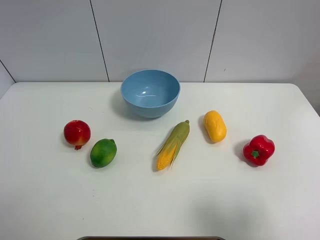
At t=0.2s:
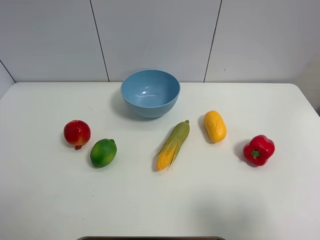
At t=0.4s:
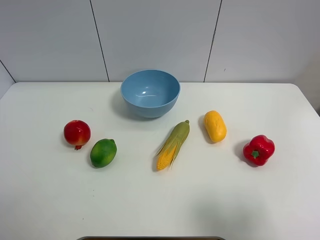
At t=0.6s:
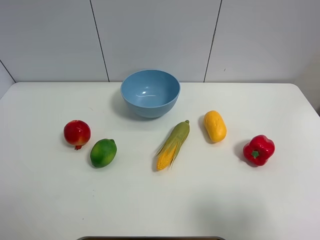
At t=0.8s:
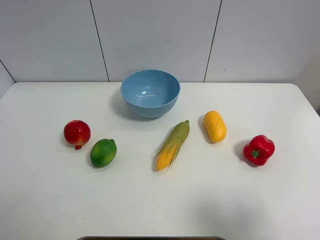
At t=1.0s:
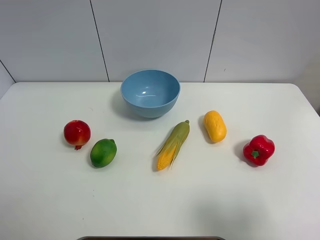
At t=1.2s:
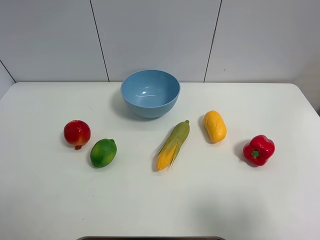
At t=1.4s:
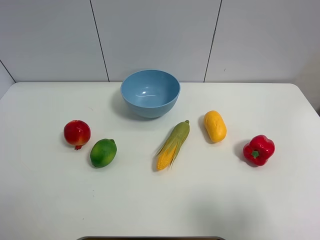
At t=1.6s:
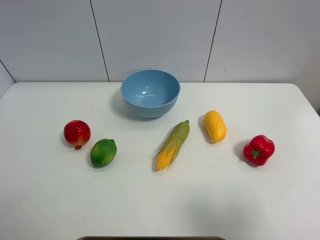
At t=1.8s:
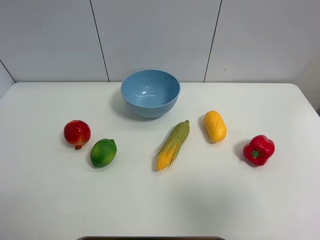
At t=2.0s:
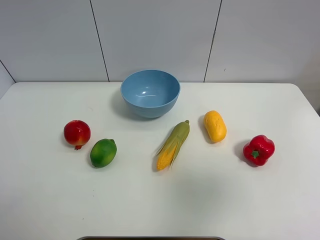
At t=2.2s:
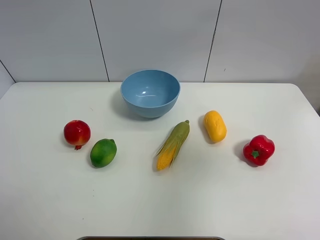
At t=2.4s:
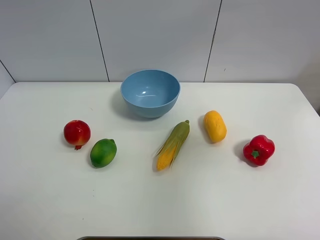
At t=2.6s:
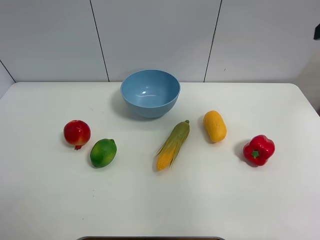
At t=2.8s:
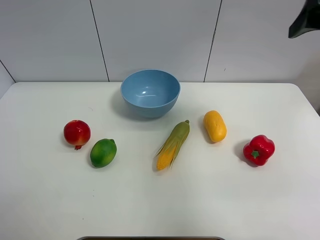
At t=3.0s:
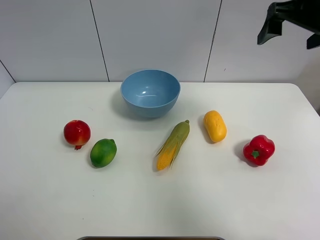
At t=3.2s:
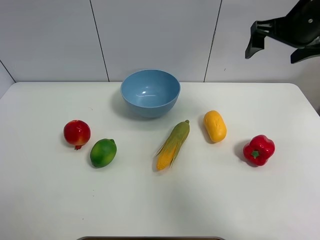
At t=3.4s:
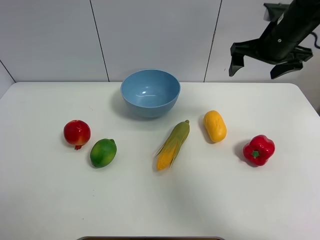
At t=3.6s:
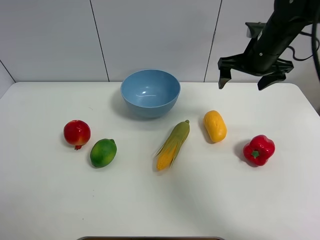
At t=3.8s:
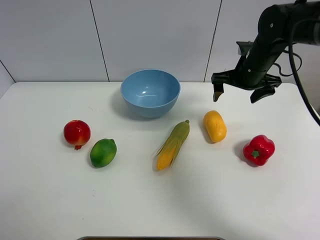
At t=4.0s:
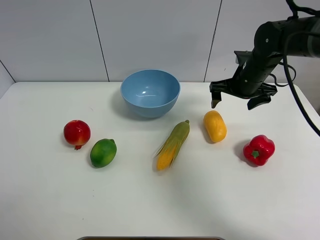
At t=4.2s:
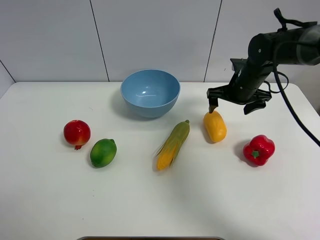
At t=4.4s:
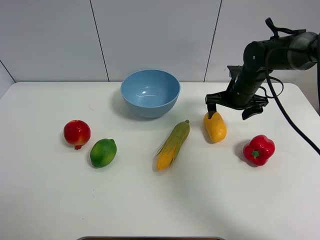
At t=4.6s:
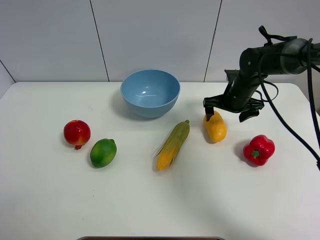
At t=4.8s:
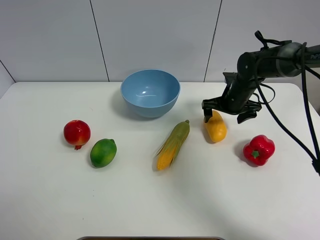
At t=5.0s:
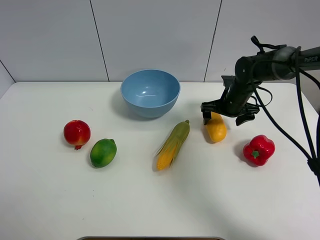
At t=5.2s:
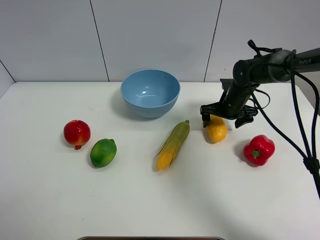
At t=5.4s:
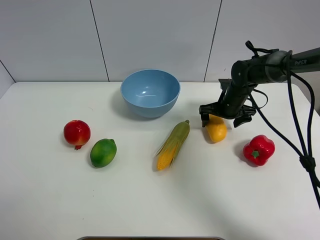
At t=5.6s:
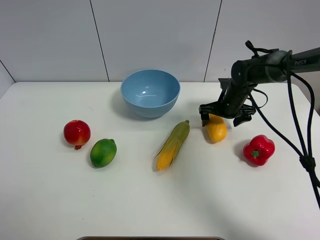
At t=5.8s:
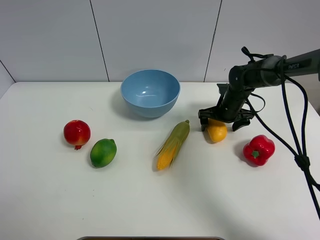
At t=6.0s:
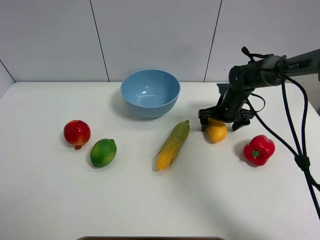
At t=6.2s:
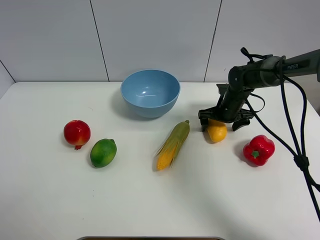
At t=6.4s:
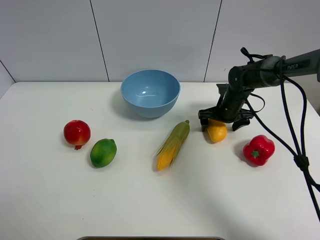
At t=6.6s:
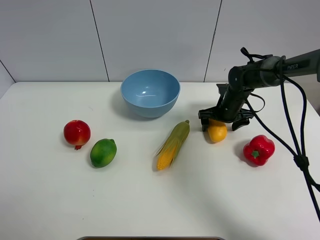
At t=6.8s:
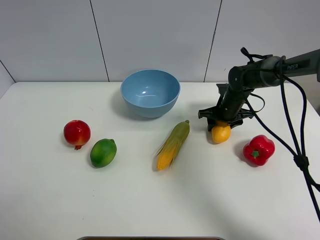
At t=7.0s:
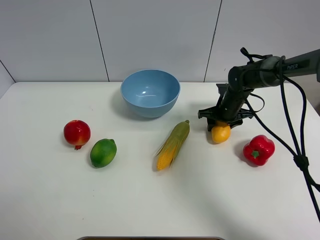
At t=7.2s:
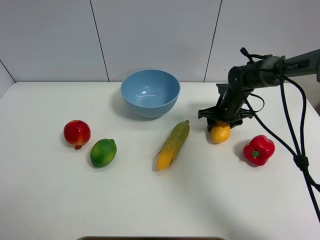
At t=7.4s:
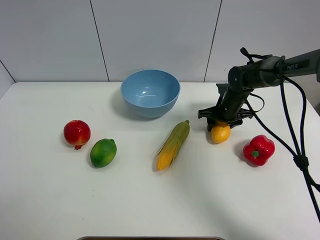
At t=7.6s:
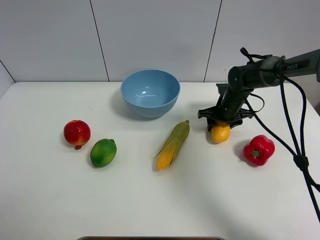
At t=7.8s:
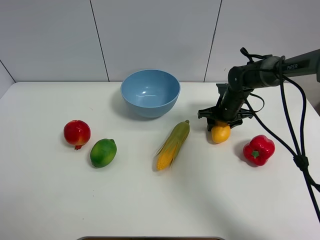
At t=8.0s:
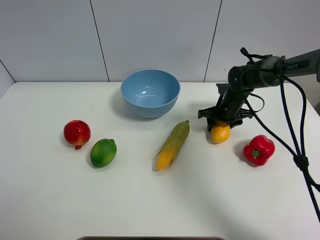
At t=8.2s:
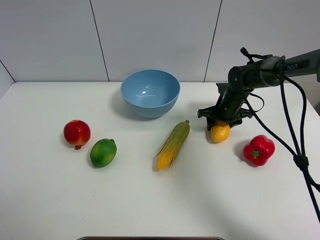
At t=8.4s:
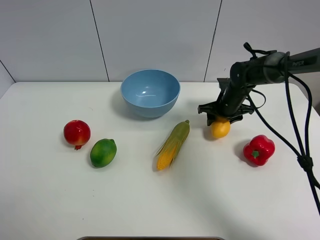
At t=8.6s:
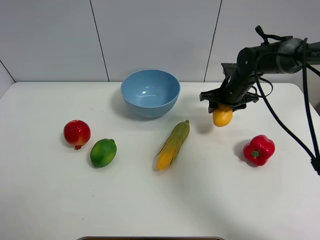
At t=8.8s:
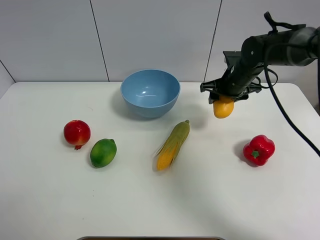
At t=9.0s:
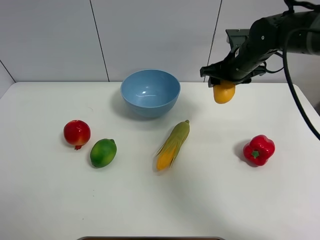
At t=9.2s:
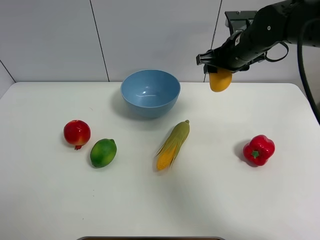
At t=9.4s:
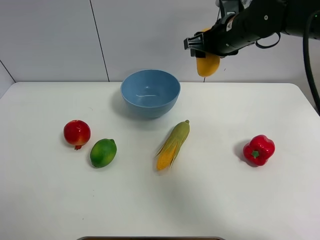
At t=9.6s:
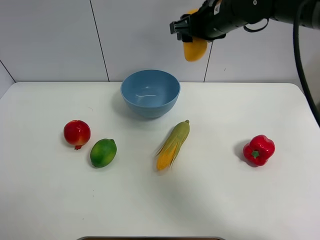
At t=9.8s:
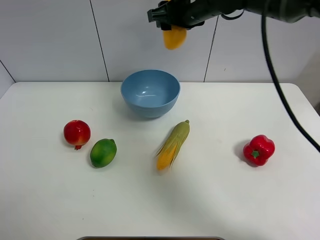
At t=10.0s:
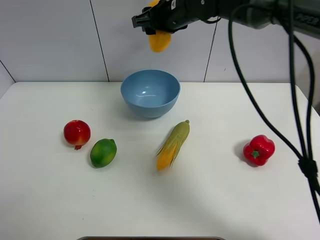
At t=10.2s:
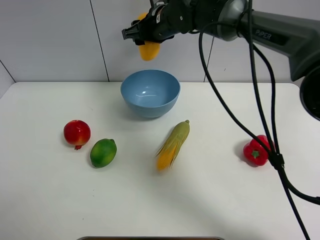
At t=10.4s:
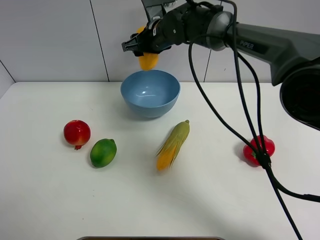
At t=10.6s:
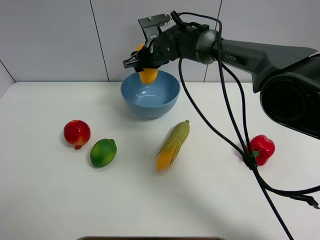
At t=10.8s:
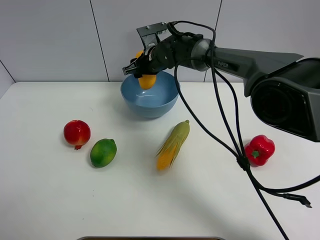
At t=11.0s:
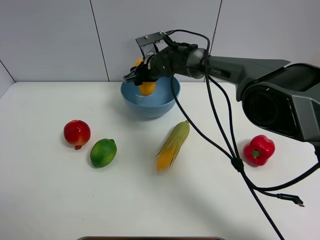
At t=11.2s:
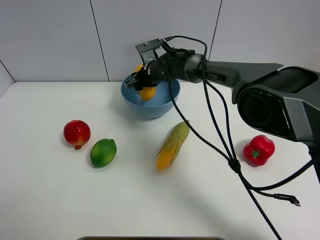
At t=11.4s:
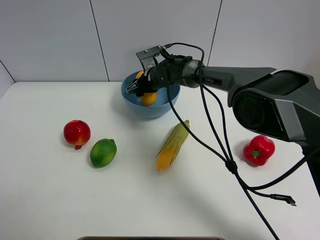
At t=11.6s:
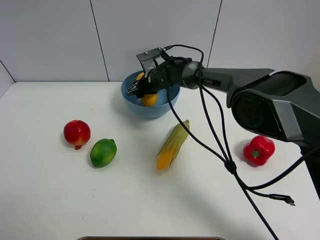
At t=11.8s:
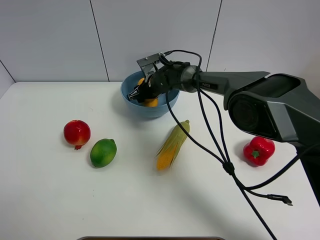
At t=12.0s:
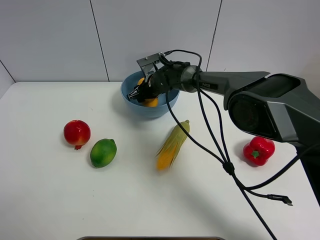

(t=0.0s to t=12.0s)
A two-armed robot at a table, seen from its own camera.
Task of the whole recording: Put the three fruits on the table into a bowl.
Step, t=0.0s - t=6.8s: Grasp the mango with right gripper.
t=1.6s - t=3.0s: The right gripper travels forward by roughly 35 cm.
t=3.0s - t=4.4s: The right gripper is displaced downward by some 20 cm.
t=4.4s - t=6.0s: The right gripper heads downward, covering about 5 cm.
t=6.0s - t=7.6s: The right gripper closes up.
t=7.6s - t=9.0s: The right gripper moves upward, roughly 15 cm.
t=9.0s - t=10.4s: The right gripper heads to the left, covering roughly 20 cm.
t=10.4s - t=12.0s: The right gripper goes approximately 15 cm downward.

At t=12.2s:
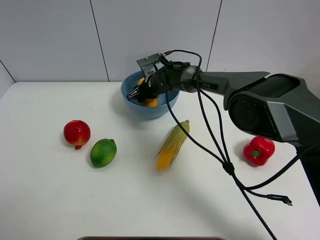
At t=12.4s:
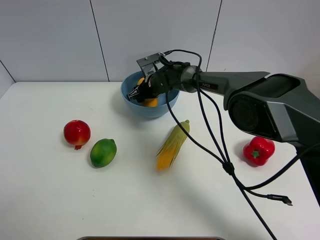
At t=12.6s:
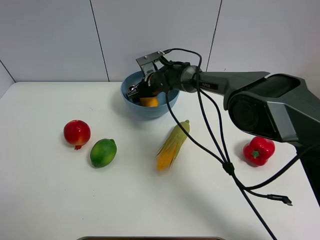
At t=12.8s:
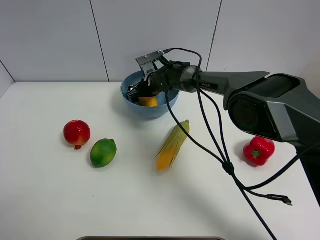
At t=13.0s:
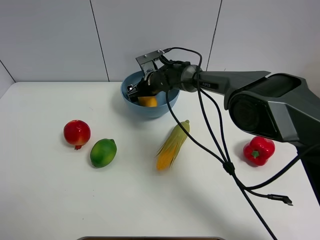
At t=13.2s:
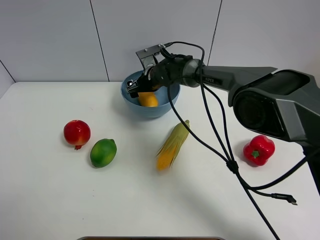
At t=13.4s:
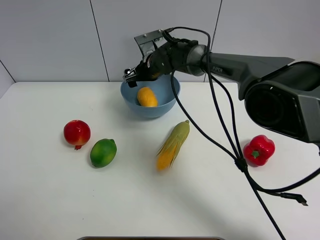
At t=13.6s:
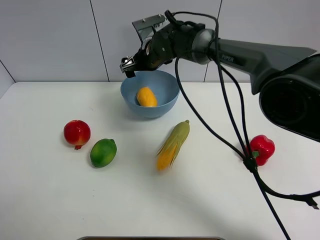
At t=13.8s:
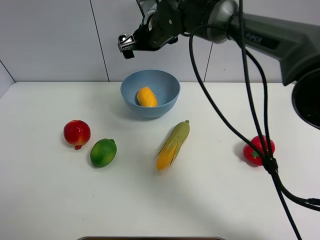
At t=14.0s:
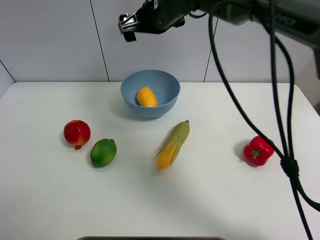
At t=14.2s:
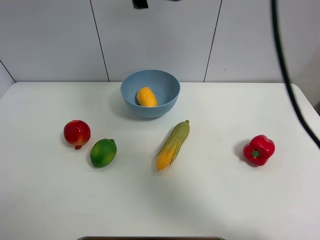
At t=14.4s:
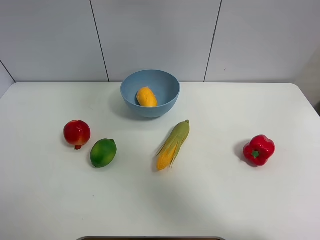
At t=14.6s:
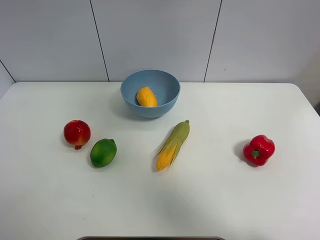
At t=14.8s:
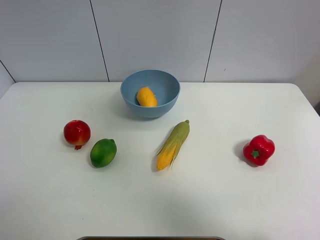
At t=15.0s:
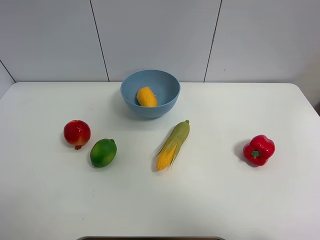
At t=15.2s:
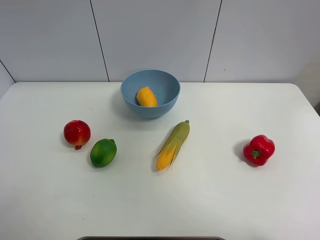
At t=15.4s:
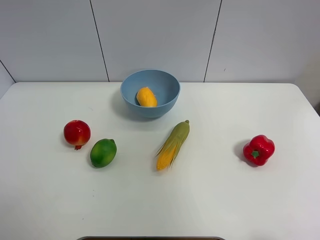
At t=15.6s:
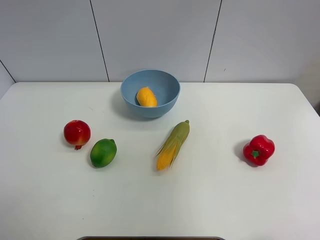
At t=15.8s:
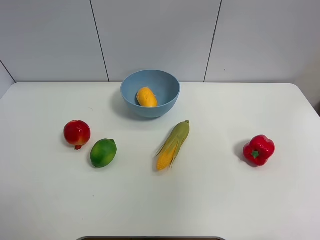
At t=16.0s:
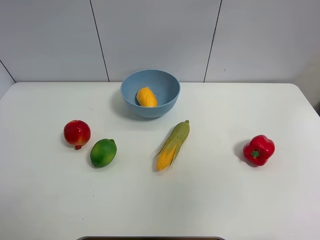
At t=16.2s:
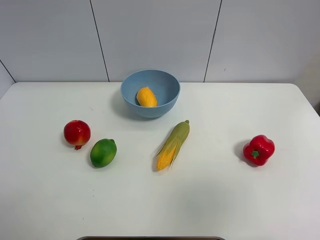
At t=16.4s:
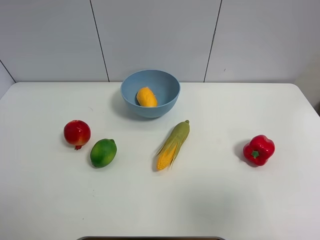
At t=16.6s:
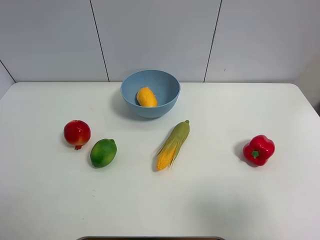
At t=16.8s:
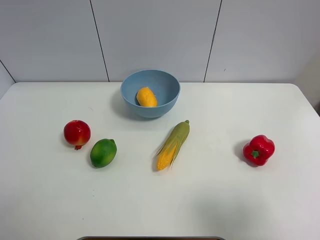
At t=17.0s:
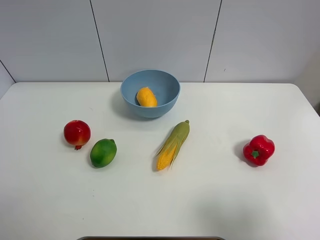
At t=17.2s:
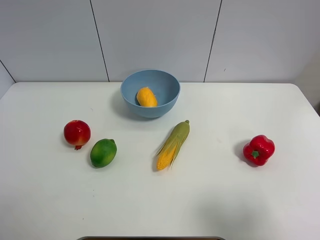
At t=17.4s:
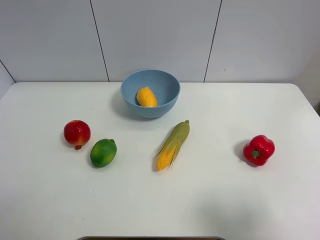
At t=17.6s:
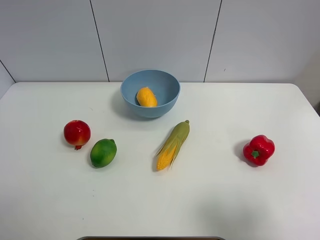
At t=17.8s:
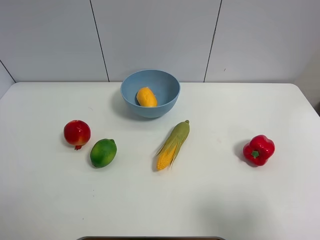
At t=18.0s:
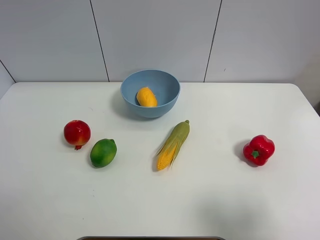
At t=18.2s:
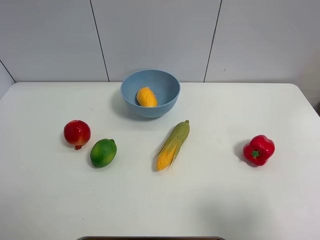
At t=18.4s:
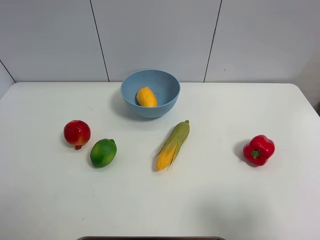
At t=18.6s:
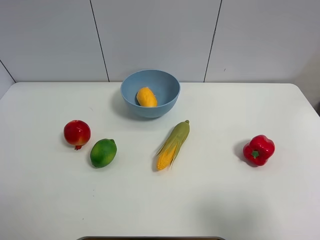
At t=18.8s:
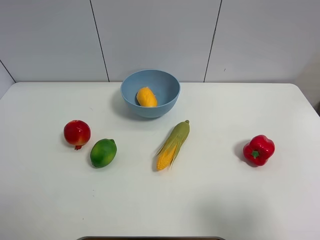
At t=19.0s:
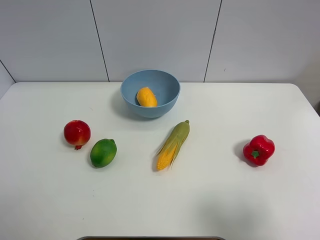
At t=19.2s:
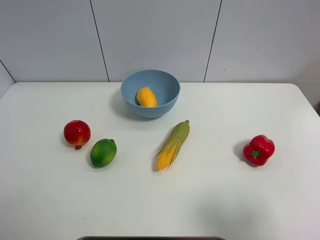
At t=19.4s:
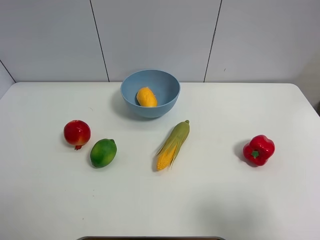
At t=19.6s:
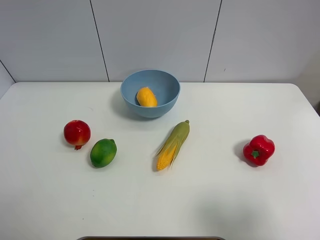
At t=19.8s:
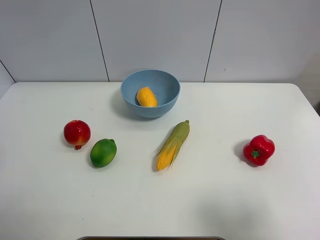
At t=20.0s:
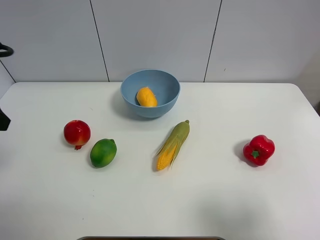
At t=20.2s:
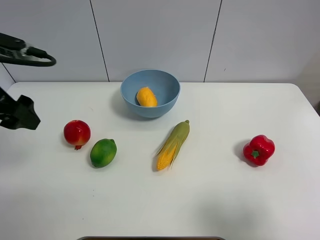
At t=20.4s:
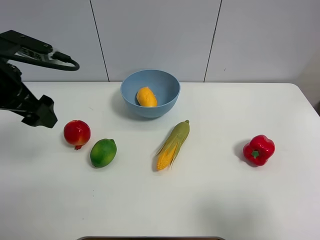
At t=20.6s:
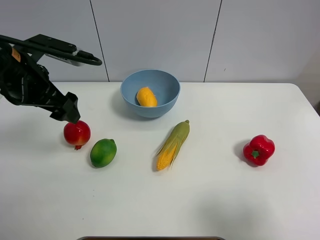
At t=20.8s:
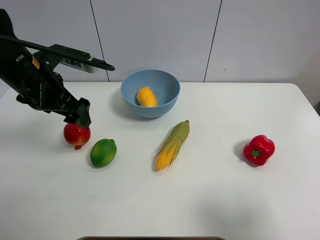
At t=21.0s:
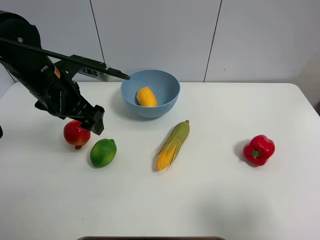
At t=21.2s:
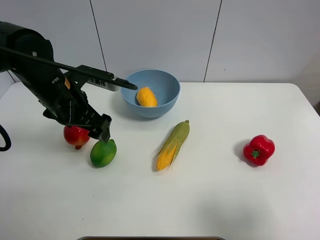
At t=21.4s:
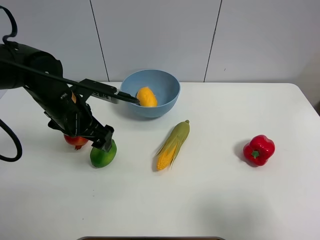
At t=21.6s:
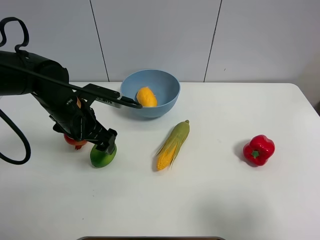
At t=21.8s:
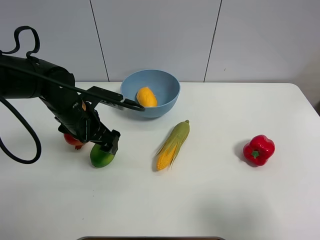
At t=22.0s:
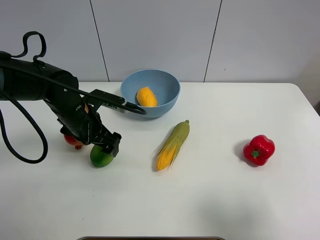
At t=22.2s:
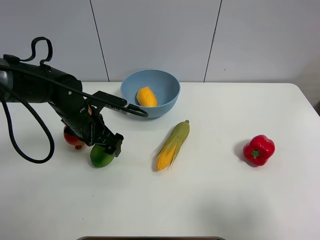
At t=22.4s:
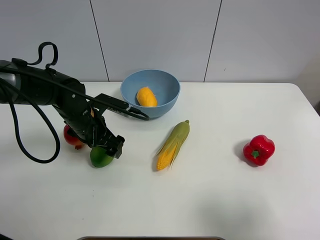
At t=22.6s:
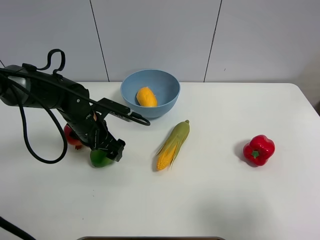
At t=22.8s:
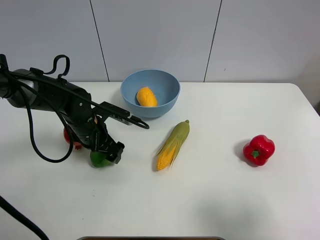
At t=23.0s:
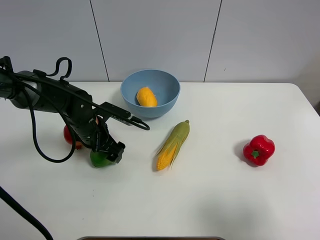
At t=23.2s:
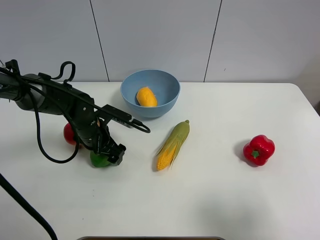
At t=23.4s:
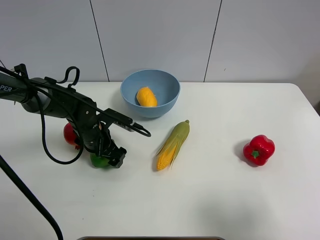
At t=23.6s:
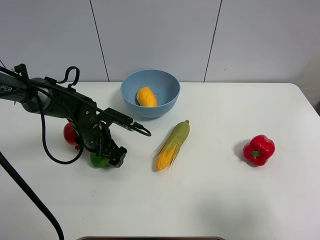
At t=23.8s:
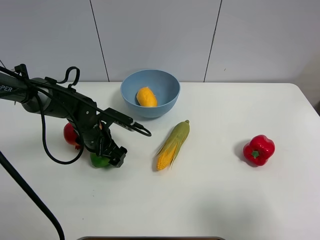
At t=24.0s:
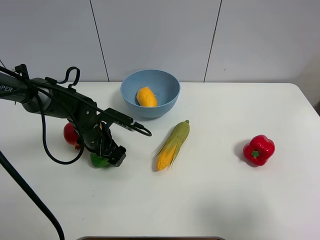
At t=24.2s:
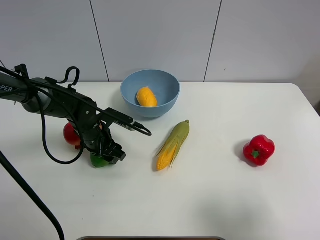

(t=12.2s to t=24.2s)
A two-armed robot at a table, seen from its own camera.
Task of the whole recording: Put the three fruits on the table into a bowl.
Step, t=13.4s - t=24.0s: Grasp the green lemon with left gripper.
t=12.2s - t=13.8s: The right gripper goes roughly 20 cm upward, and opens.
t=13.8s - t=15.2s: The right gripper goes roughly 50 cm upward, backward and to the right.
t=15.2s - t=16.6s: The right gripper travels downward and backward by about 30 cm.
t=19.8s - t=21.2s: The left gripper is displaced to the right, downward and forward by about 20 cm.
t=21.2s - t=22.6s: The left gripper moves downward, roughly 10 cm.
t=22.6s - t=24.2s: The left gripper closes up.
